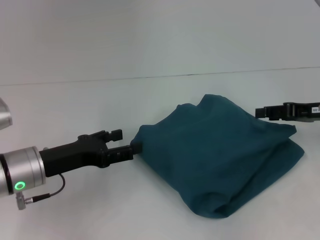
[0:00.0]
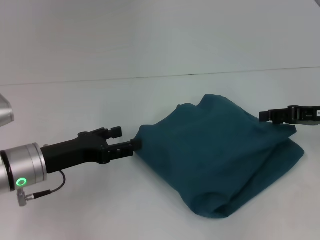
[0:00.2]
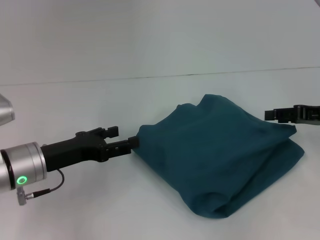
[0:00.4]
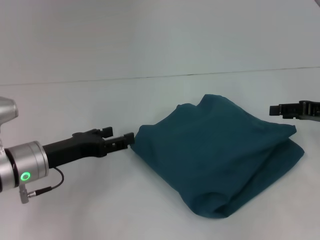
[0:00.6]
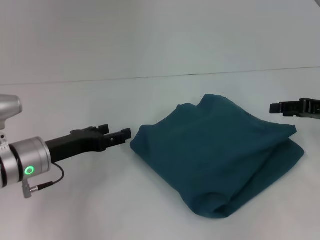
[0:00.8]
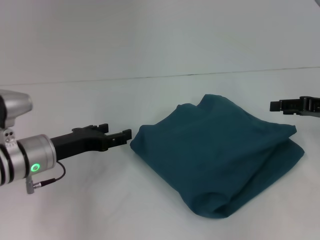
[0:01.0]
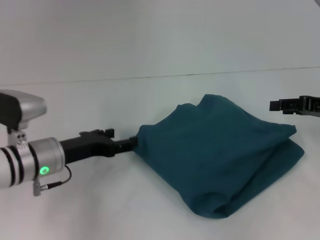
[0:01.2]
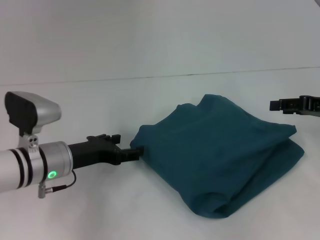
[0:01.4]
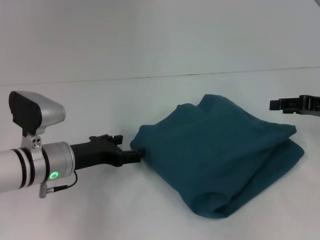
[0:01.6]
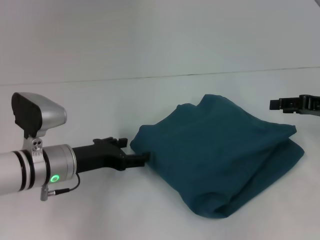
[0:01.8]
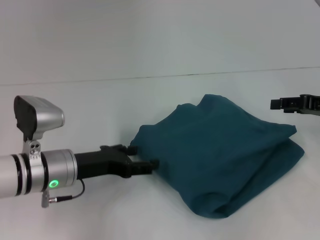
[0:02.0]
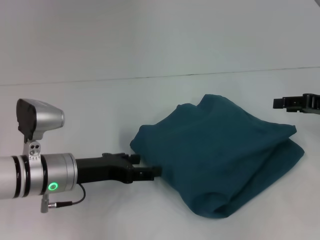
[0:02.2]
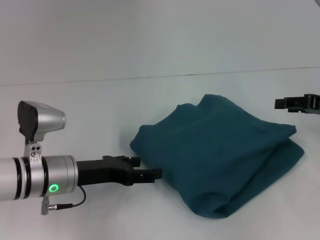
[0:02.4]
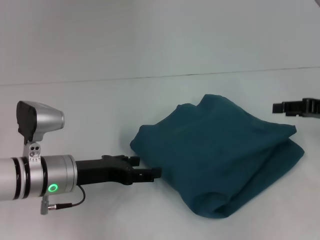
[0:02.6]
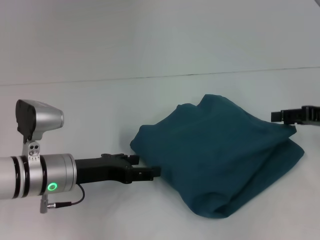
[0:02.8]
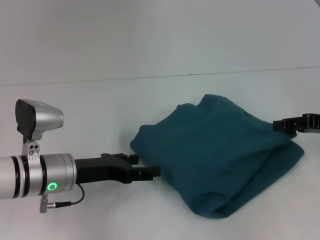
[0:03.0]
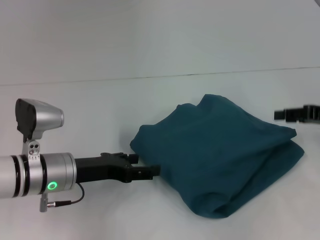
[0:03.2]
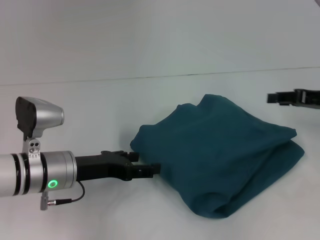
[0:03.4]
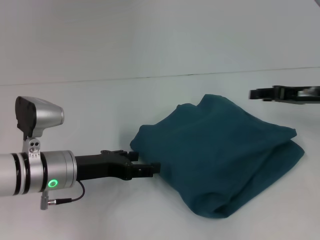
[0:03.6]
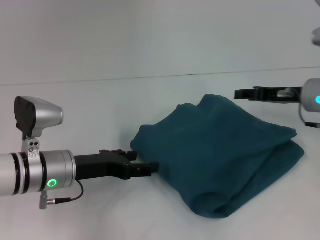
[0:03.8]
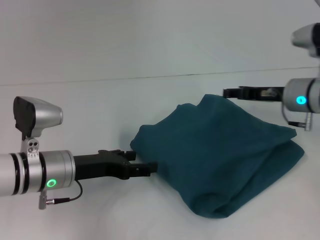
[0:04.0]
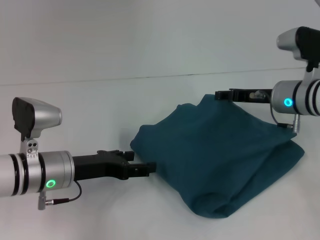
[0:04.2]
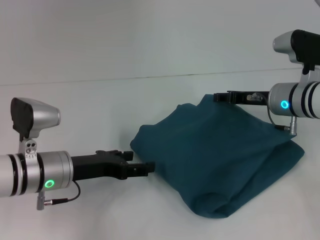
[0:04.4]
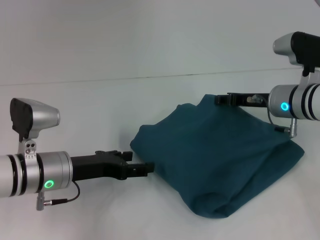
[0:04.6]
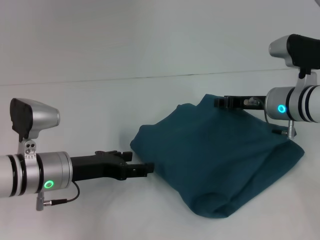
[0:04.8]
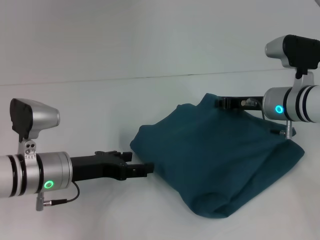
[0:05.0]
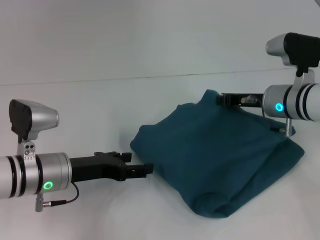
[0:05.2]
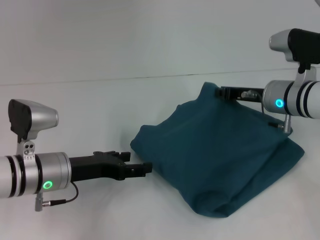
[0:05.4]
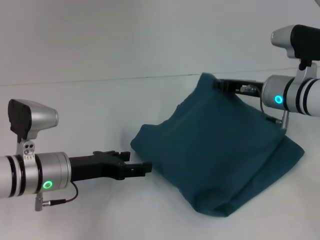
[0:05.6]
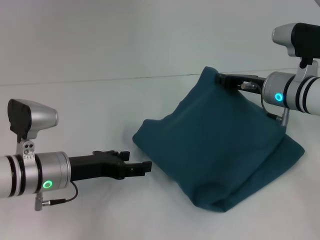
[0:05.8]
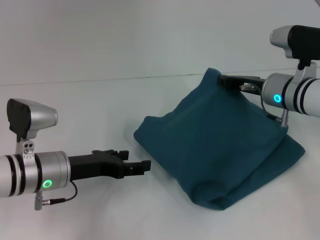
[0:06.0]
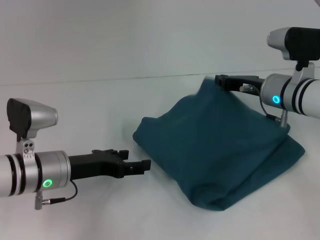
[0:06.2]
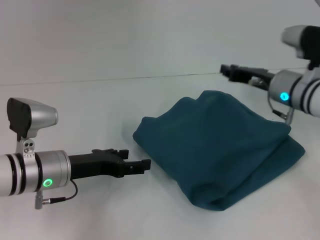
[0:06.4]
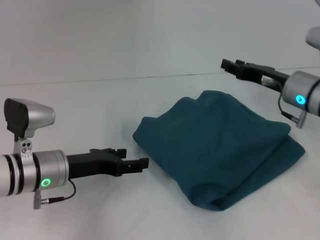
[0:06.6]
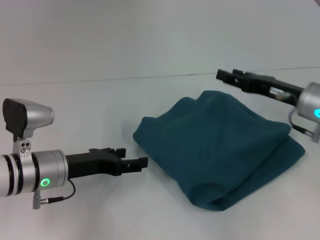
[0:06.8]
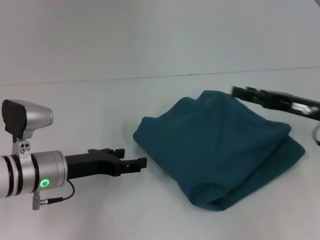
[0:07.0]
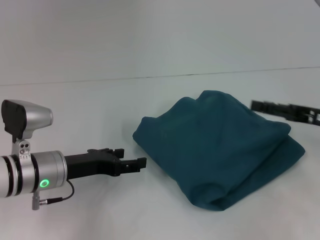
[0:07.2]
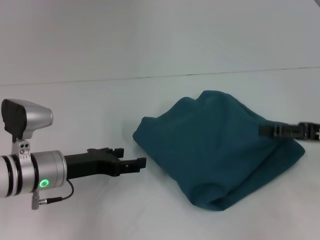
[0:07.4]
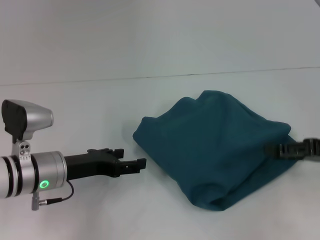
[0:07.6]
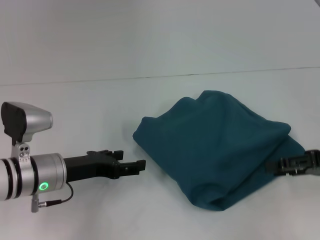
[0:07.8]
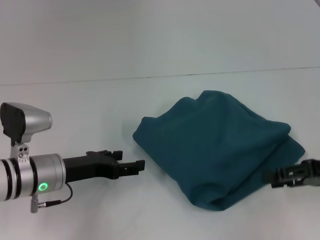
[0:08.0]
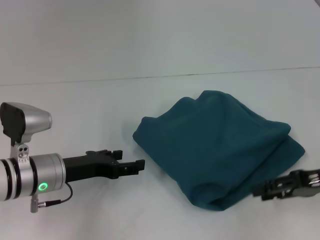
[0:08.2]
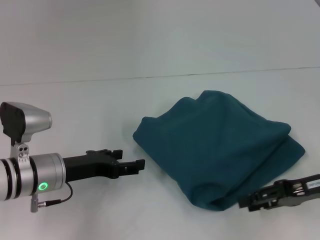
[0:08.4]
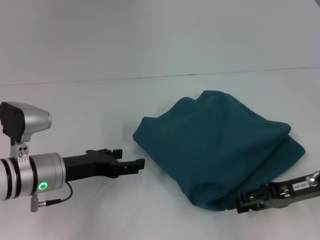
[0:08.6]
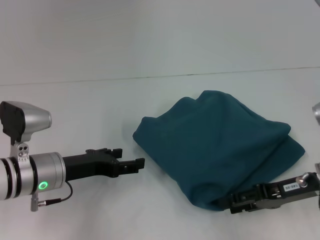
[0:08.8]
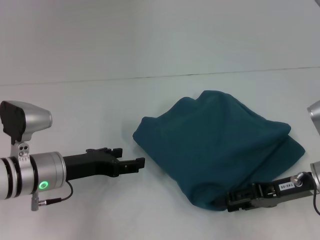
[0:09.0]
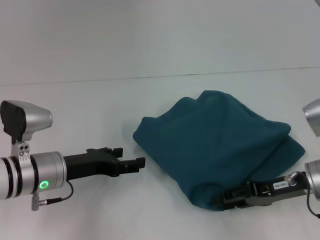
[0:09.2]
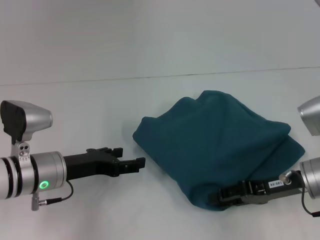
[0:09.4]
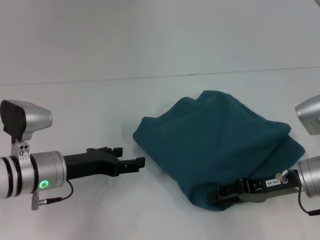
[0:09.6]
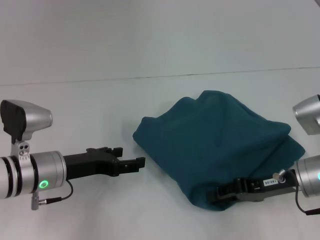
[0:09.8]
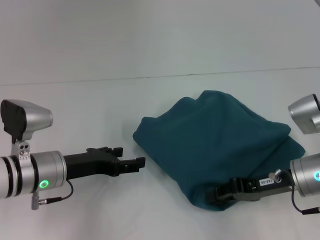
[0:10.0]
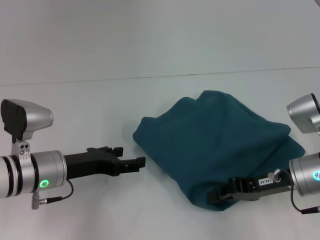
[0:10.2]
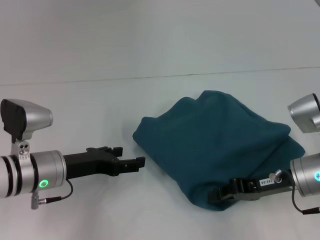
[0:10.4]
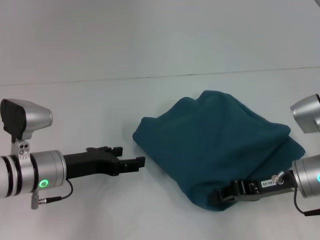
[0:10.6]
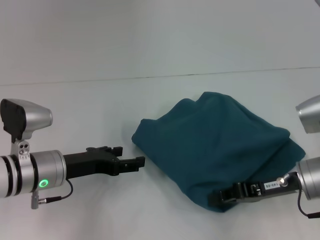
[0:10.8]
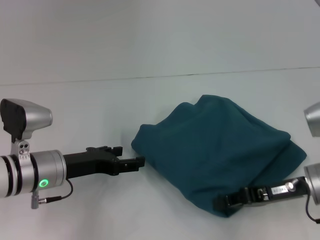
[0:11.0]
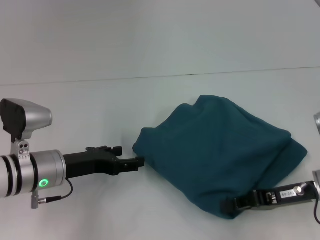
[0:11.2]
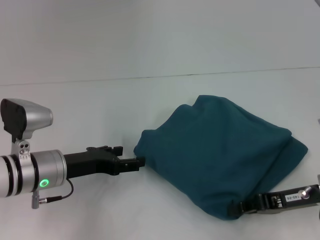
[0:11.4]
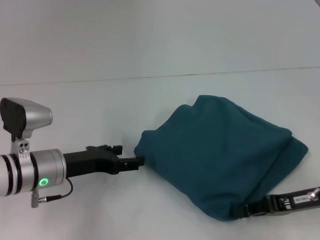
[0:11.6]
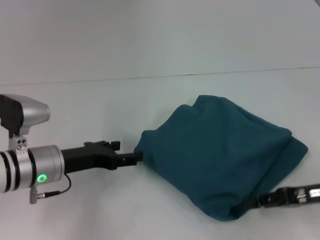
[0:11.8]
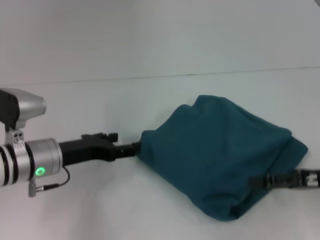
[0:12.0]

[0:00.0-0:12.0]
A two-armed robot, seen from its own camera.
0:00.0 to 0:01.6: The left gripper ends up roughly 5 cm from where it was.
0:01.6 to 0:03.0: The grippers move only a little.
0:03.0 to 0:04.4: The right gripper goes approximately 15 cm to the left and forward.
0:04.4 to 0:06.0: The right gripper closes its fingers.
0:06.0 to 0:07.6: The right gripper moves backward and to the right, roughly 15 cm, and opens.
0:07.6 to 0:09.0: The right gripper goes approximately 10 cm to the left and downward.
0:09.0 to 0:10.4: The right gripper closes up.
0:10.4 to 0:12.0: The right gripper moves to the right, approximately 10 cm, and opens its fingers.

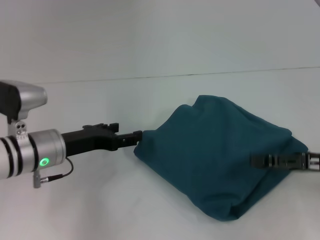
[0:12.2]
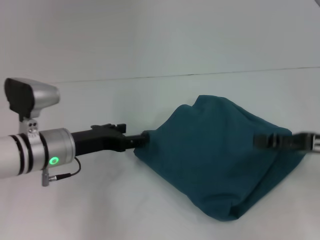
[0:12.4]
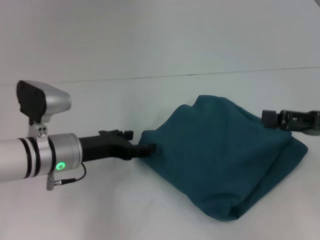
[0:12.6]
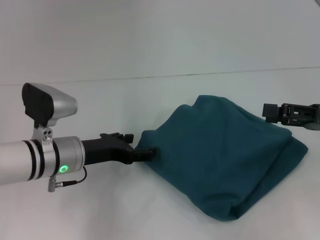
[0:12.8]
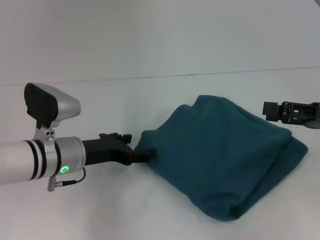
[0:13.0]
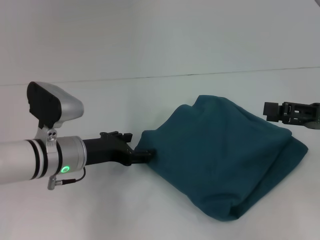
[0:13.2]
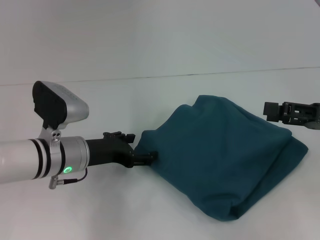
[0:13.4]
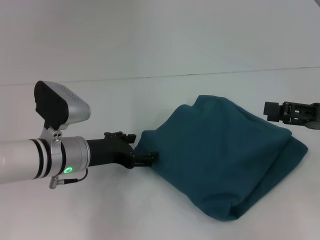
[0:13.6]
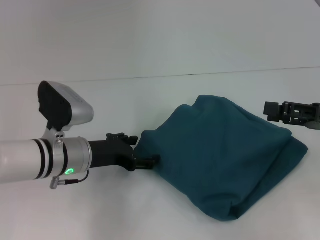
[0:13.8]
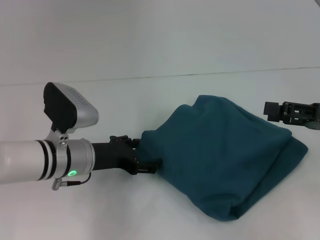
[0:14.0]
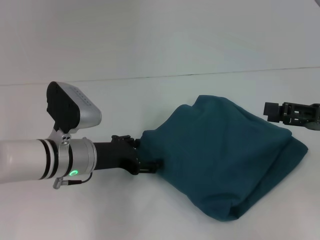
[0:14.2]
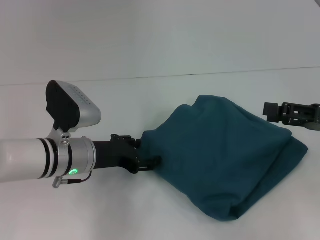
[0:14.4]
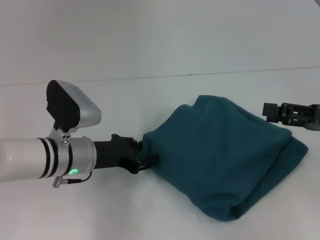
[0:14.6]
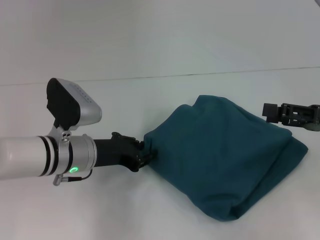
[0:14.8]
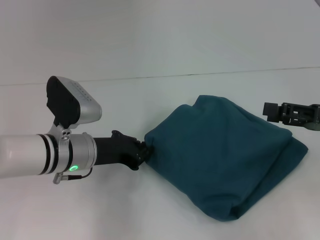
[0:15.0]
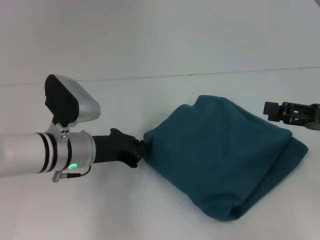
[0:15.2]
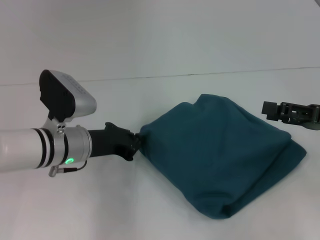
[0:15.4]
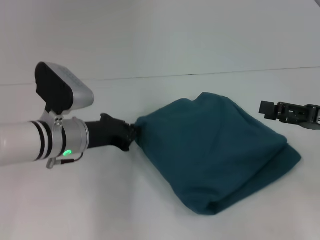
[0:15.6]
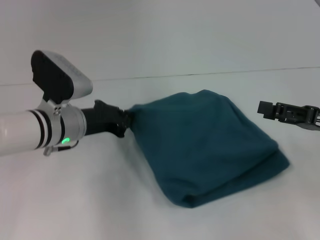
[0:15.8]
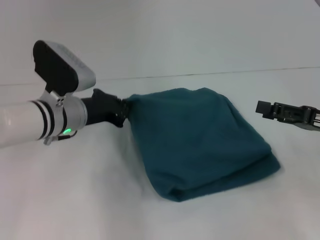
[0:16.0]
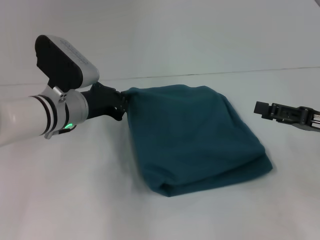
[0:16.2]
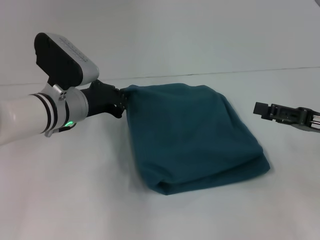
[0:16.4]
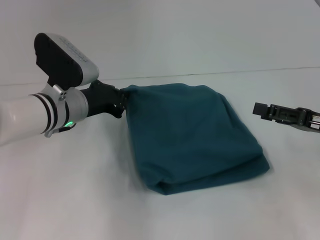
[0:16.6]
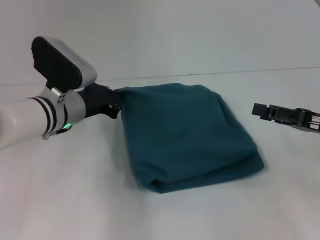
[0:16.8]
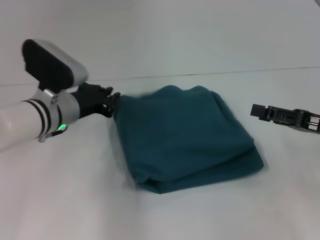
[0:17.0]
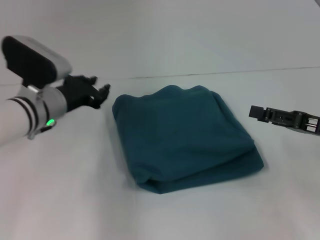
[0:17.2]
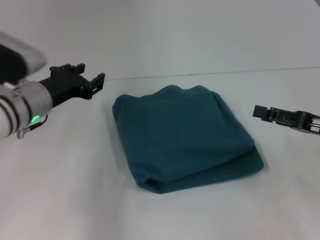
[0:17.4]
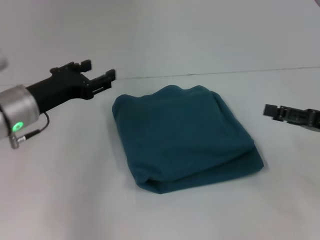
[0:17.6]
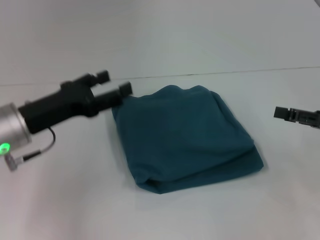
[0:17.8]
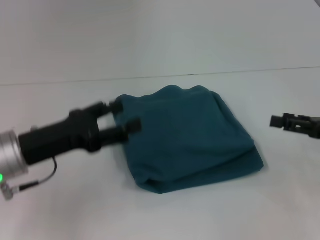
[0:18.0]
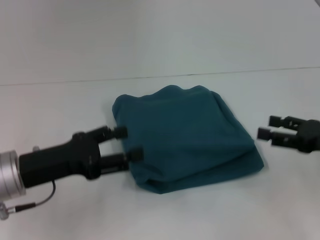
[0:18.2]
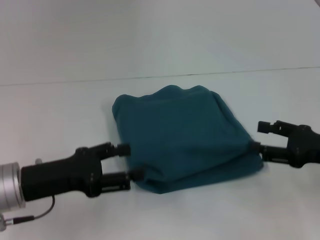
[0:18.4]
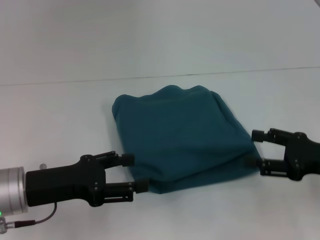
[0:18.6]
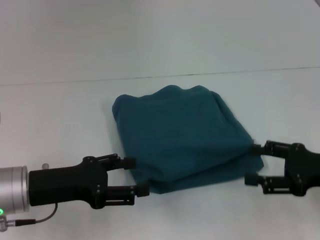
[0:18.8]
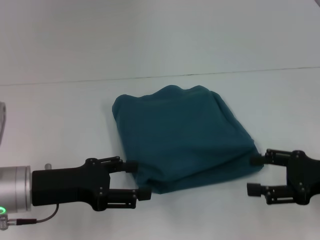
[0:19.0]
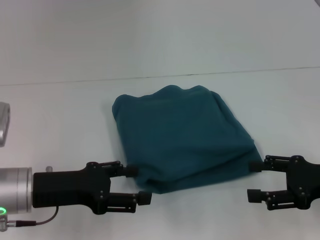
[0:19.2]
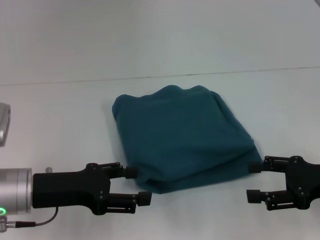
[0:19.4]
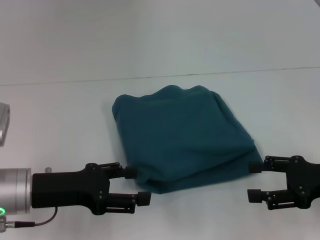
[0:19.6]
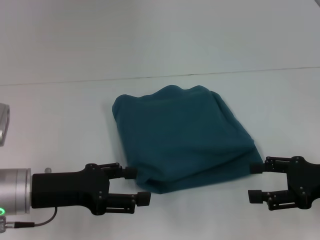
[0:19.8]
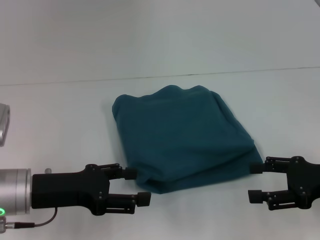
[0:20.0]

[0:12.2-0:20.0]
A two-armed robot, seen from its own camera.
0:12.2 to 0:13.8: The right gripper opens.
0:13.8 to 0:15.4: The left gripper closes its fingers.
0:16.8 to 0:18.4: The left gripper moves backward and to the left, approximately 15 cm, and opens up.
0:18.4 to 0:20.0: The grippers stay close to where they were, moving slightly.
